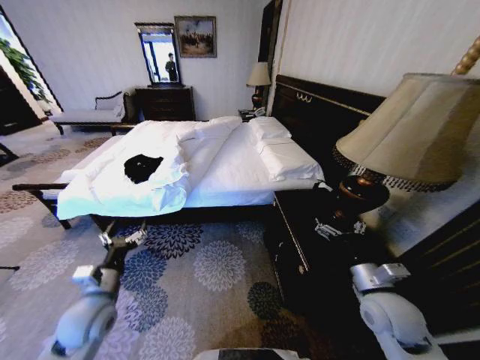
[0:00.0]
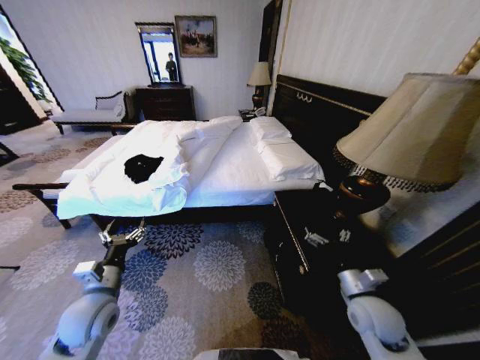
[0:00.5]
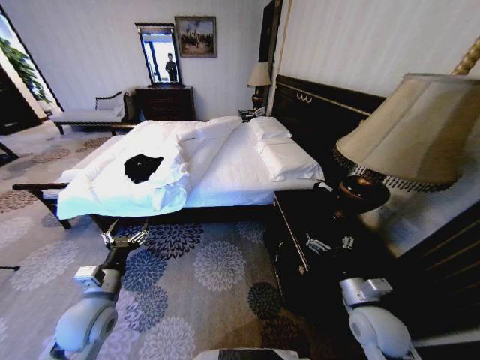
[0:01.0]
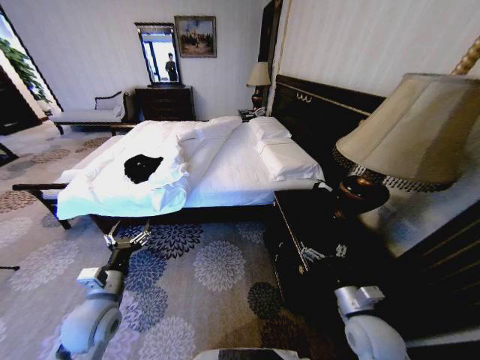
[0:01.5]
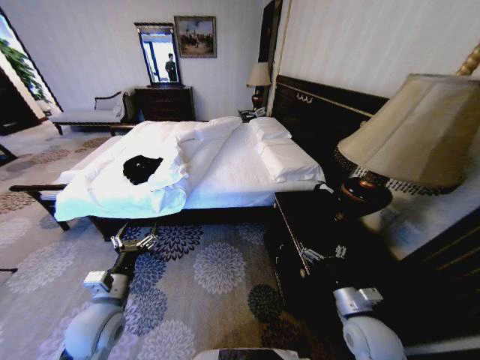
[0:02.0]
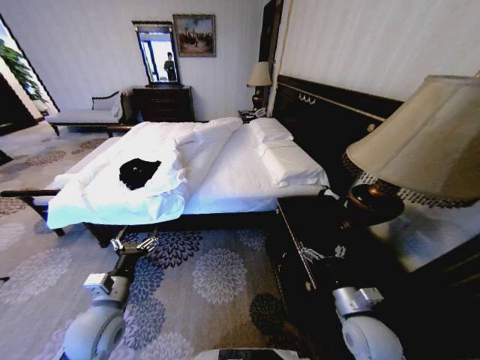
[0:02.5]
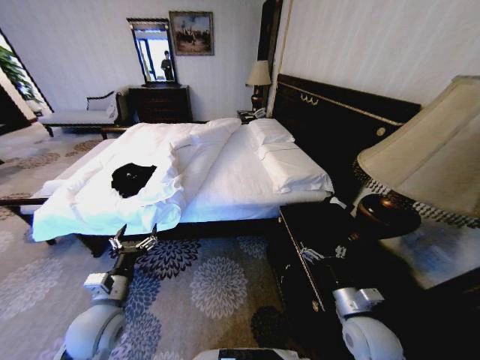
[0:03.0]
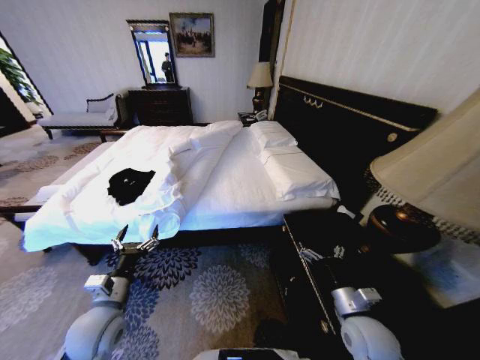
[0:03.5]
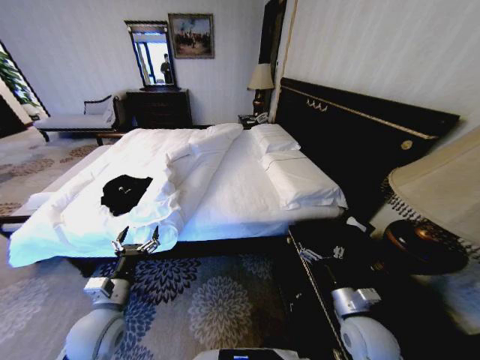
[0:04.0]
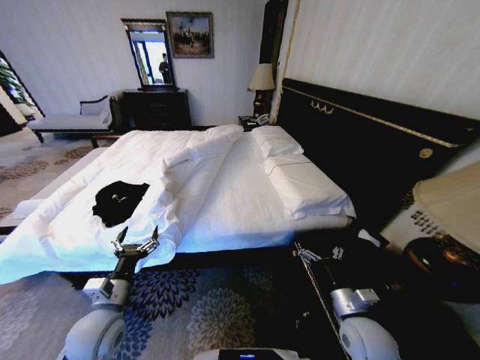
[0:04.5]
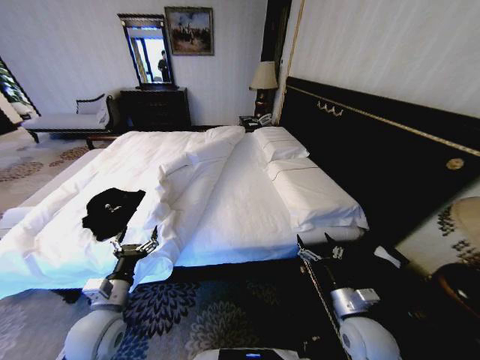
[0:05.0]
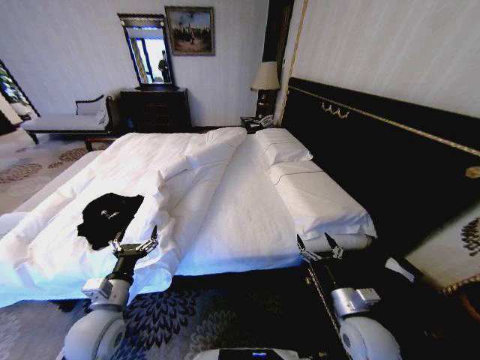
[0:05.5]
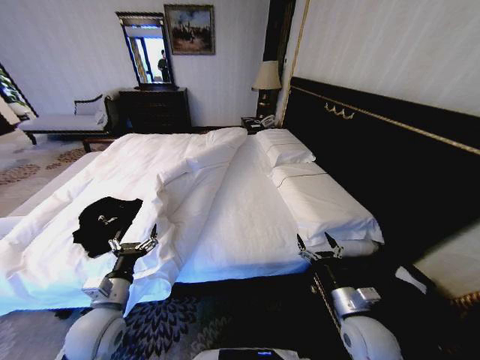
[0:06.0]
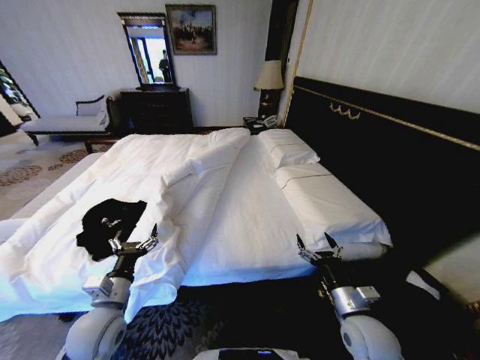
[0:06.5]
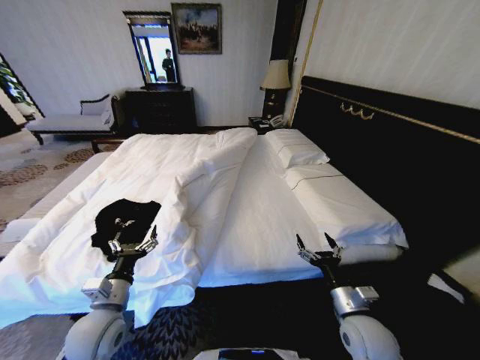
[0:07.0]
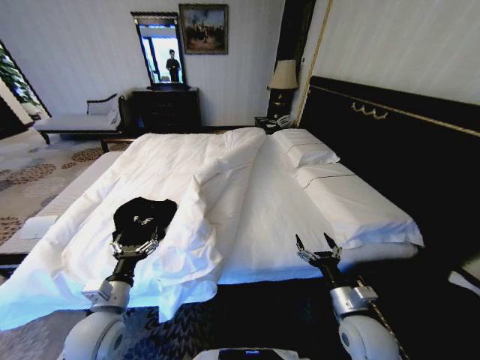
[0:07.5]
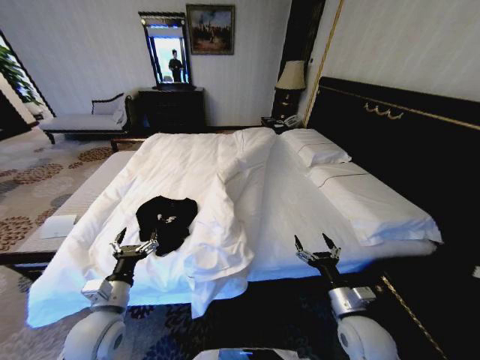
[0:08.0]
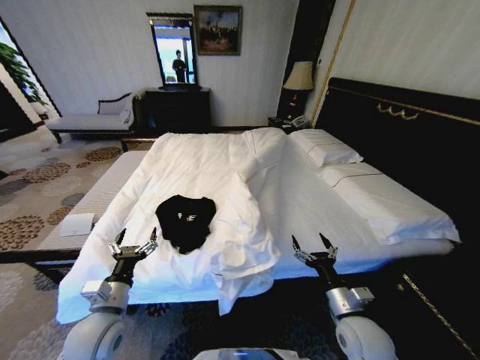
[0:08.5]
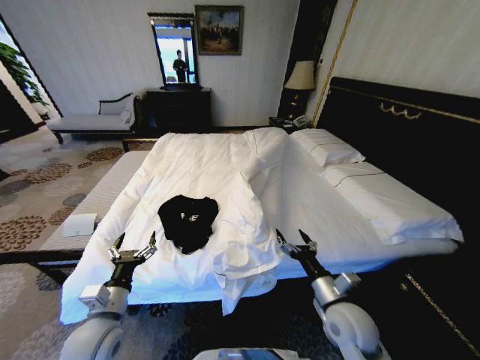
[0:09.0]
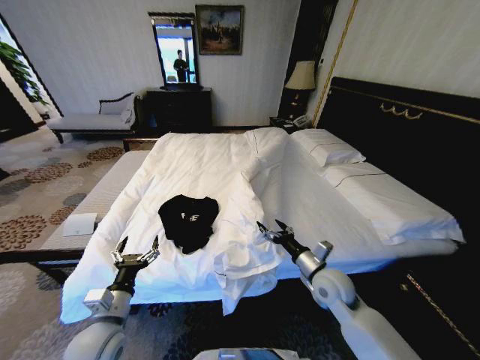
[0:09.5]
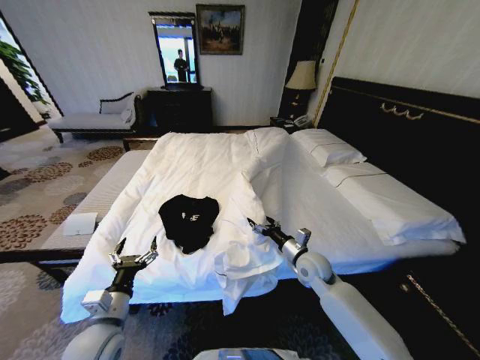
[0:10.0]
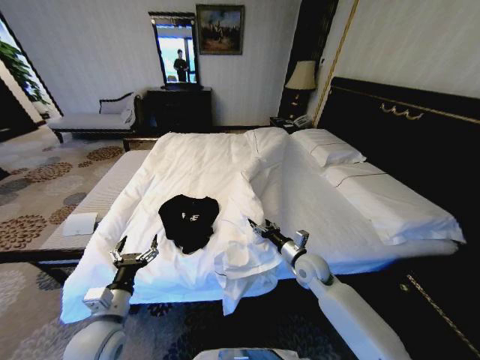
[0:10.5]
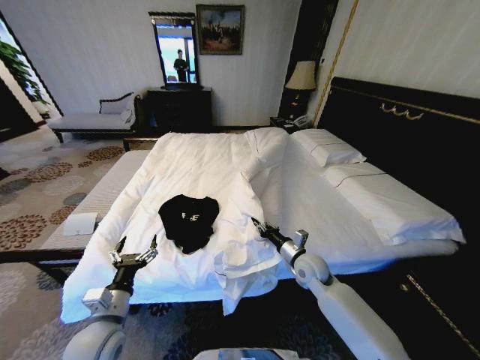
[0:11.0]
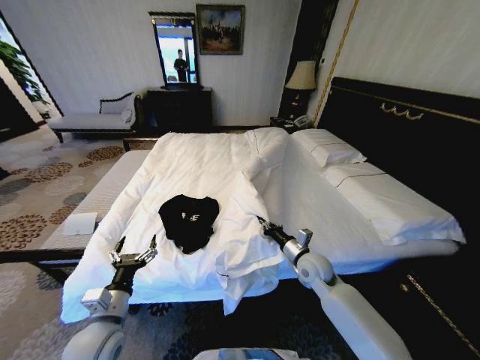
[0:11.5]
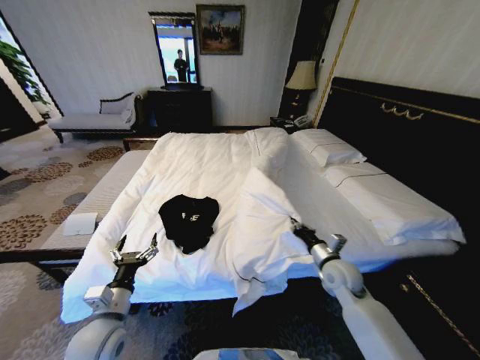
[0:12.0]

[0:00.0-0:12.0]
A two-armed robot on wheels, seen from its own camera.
Task of the whole recording: Fold the clothes on the bed.
0:08.0 to 0:10.0: The right gripper heads forward, covering roughly 15 cm.
0:10.0 to 0:12.0: The right gripper moves to the right, about 5 cm, and closes.

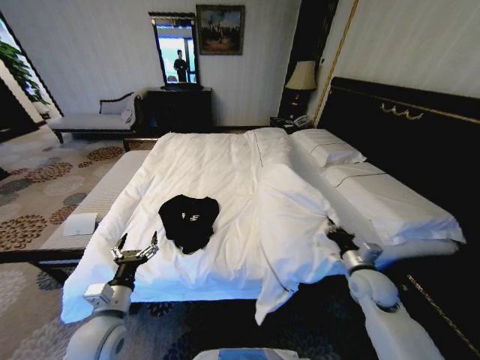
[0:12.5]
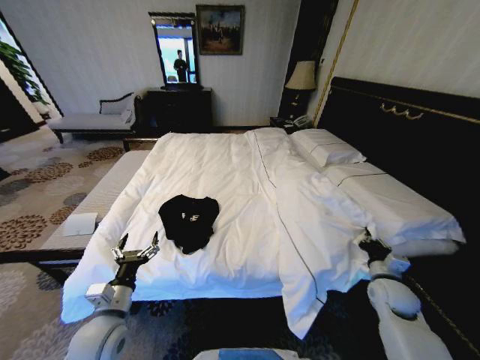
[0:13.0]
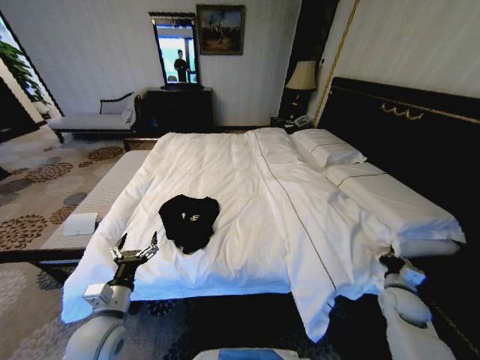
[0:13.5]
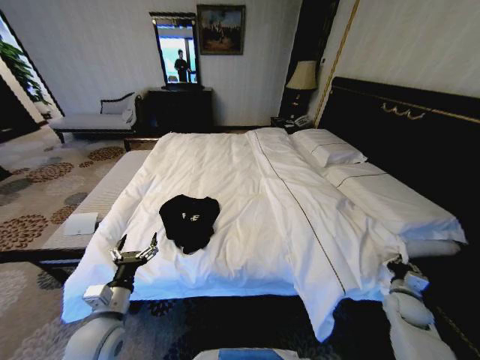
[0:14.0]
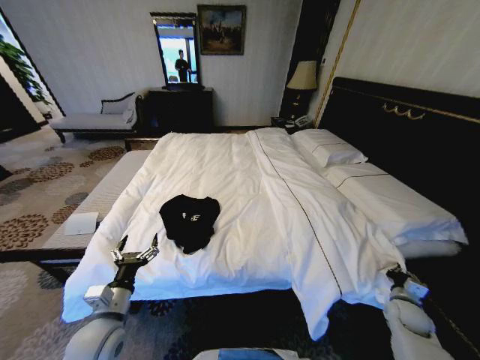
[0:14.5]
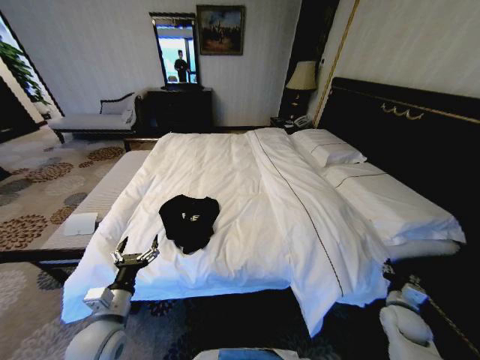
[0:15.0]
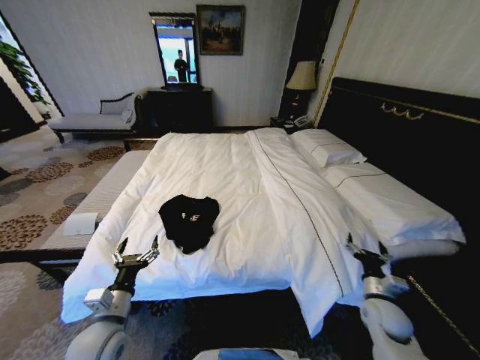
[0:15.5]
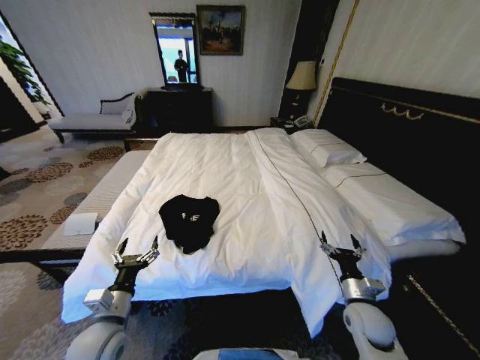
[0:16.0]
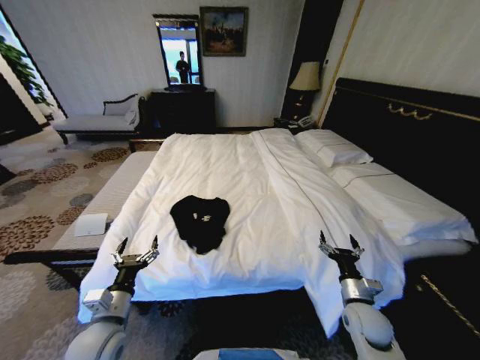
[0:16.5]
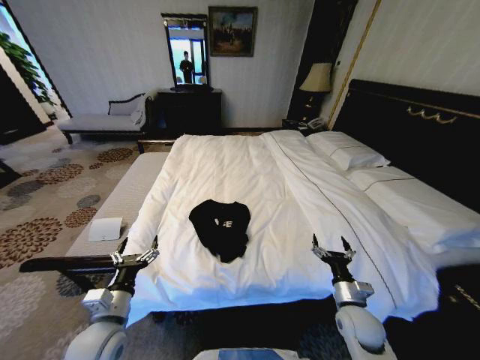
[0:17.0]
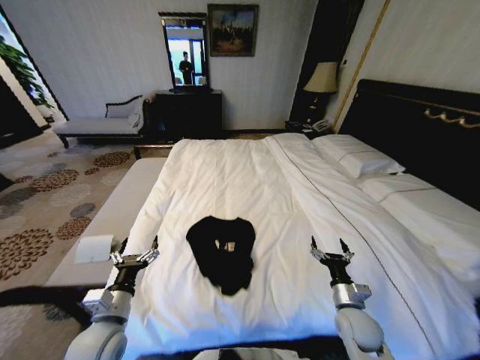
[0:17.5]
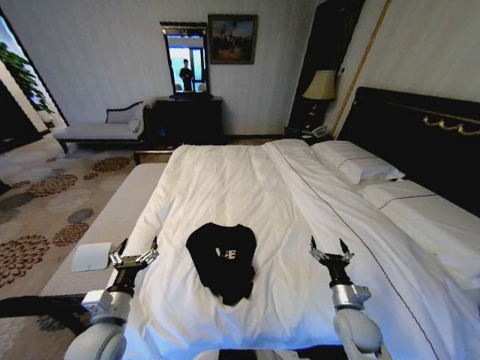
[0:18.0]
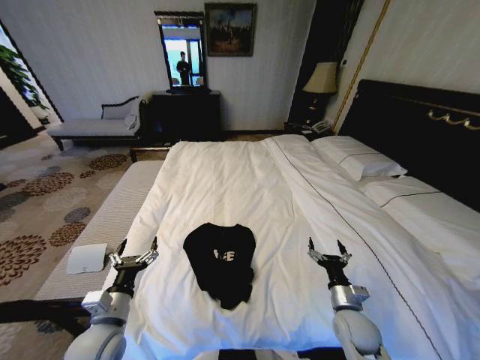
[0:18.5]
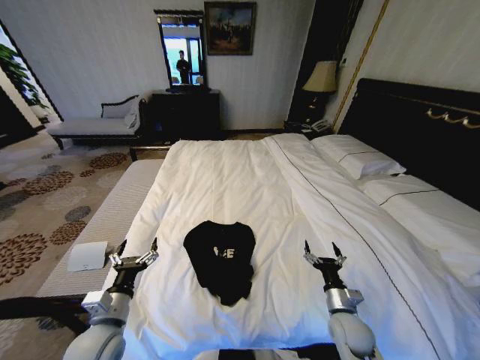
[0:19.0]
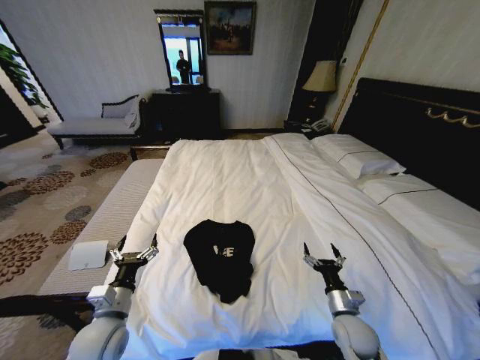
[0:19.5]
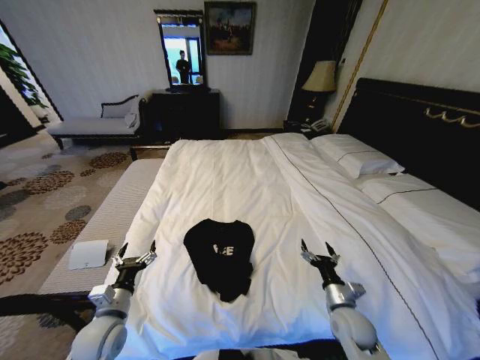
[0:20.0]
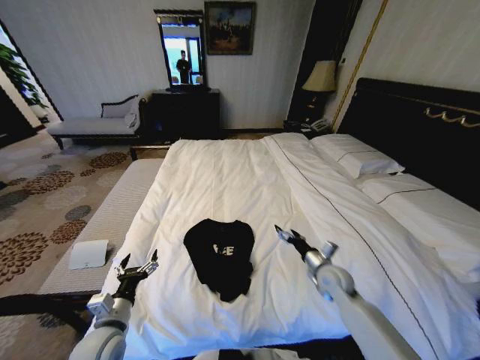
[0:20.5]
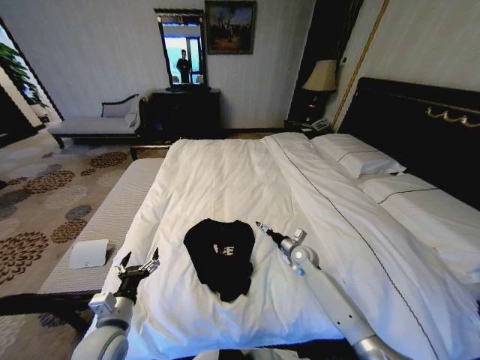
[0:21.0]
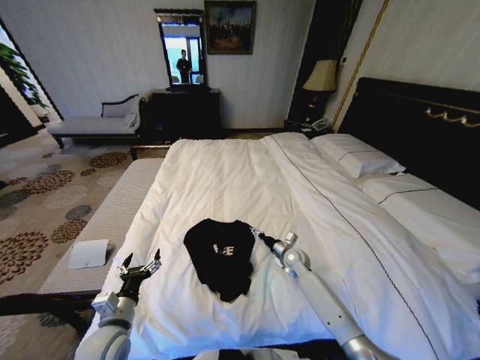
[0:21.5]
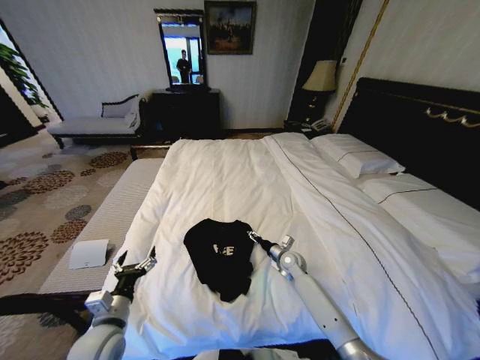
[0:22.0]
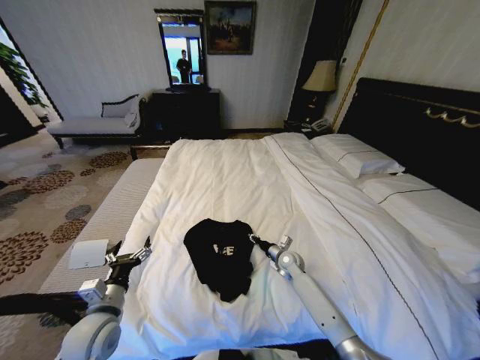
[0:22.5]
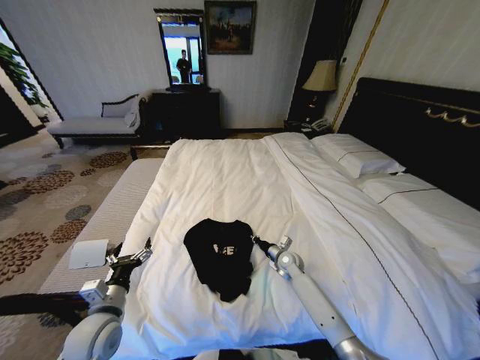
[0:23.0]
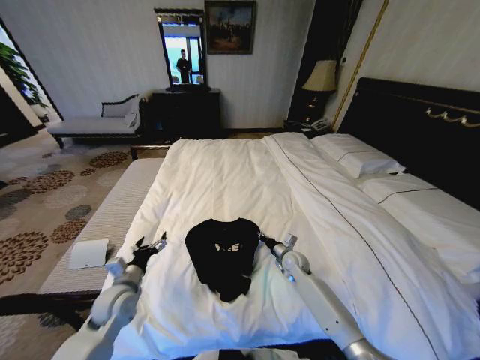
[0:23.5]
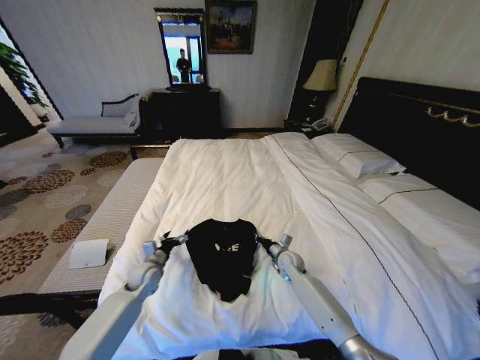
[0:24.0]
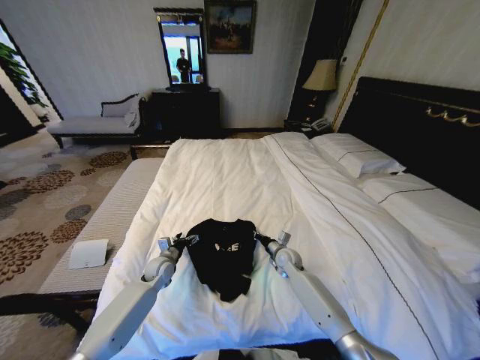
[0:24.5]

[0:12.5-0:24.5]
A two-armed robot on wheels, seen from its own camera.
Task of the whole recording: Fold the clothes on the bed.
0:12.5 to 0:14.5: The right gripper is displaced to the right and downward by roughly 20 cm.
0:14.5 to 0:16.5: The right gripper heads to the left, covering roughly 20 cm, and opens its fingers.
0:18.5 to 0:20.5: The right gripper travels forward by approximately 10 cm.
0:20.5 to 0:22.5: The right gripper heads forward, downward and to the left, covering roughly 15 cm, and closes its fingers.
0:22.5 to 0:24.5: The left gripper is displaced forward and downward by roughly 25 cm.

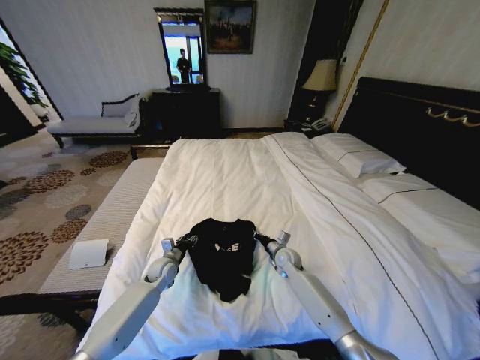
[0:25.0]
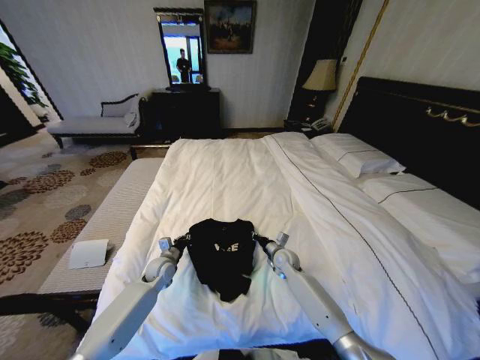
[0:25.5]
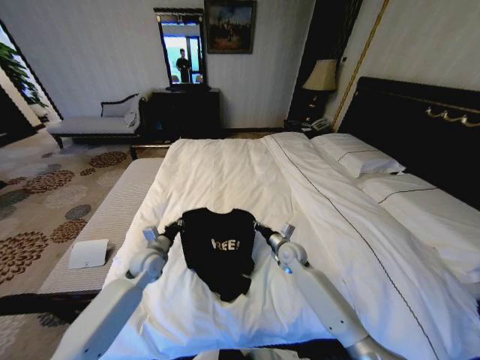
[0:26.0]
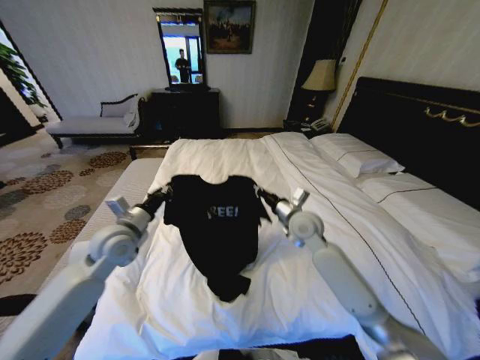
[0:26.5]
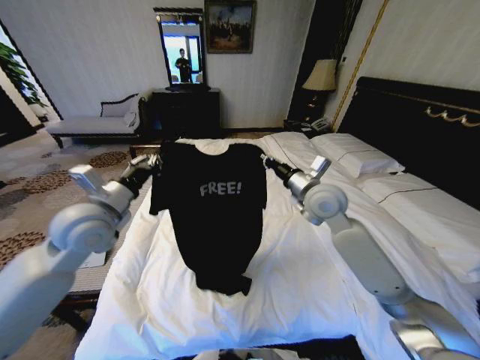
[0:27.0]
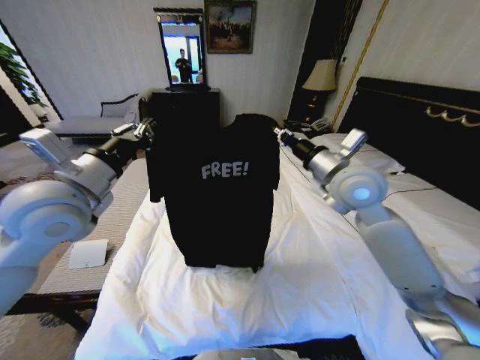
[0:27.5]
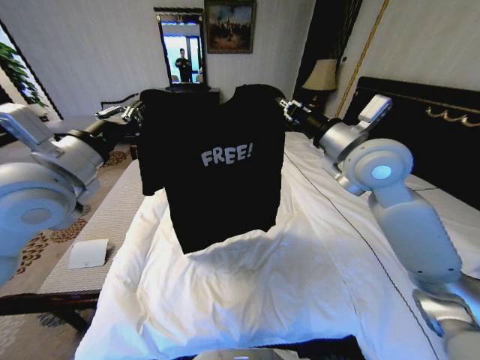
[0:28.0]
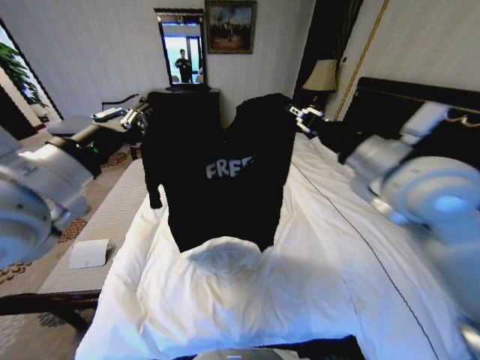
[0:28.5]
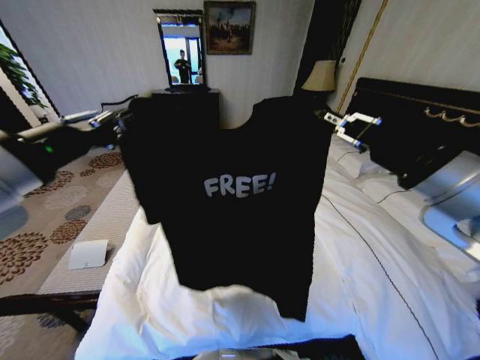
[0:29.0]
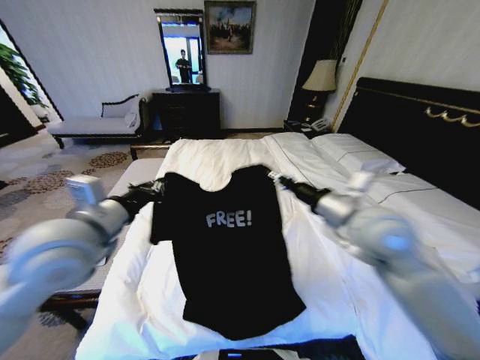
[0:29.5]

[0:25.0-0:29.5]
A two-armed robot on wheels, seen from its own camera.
Task of the whole recording: Fold the clothes on the bed.
0:25.0 to 0:27.0: Both grippers travel together upward, some 35 cm. The left gripper closes up.
0:27.0 to 0:29.5: The right gripper is displaced backward by some 10 cm. Meanwhile the left gripper travels backward by some 5 cm, and moves some 15 cm upward and comes back.
